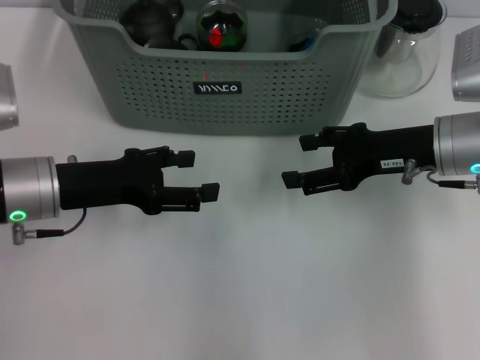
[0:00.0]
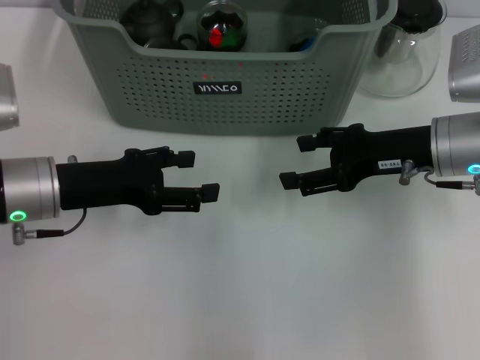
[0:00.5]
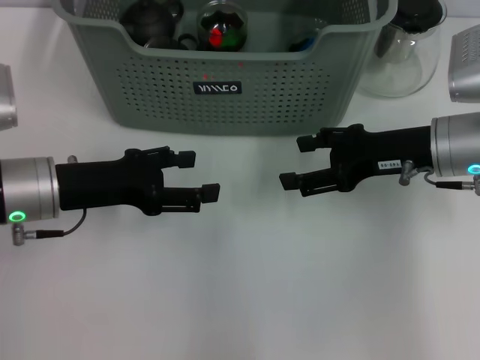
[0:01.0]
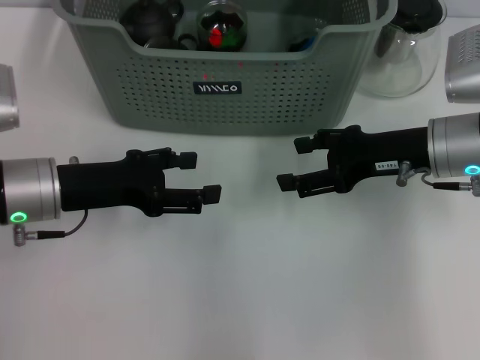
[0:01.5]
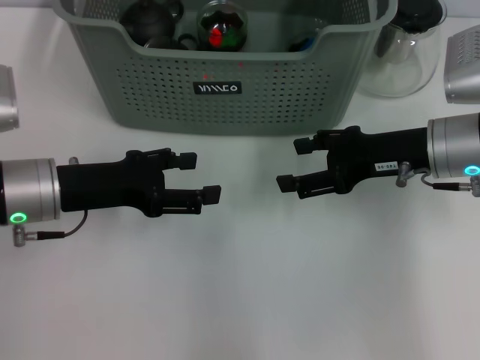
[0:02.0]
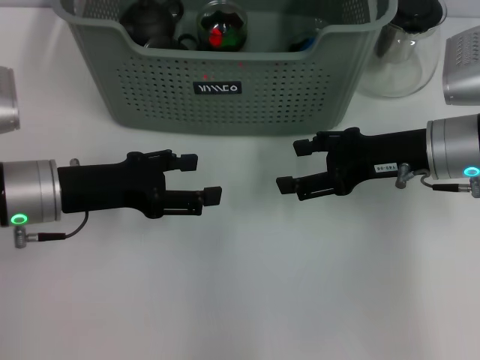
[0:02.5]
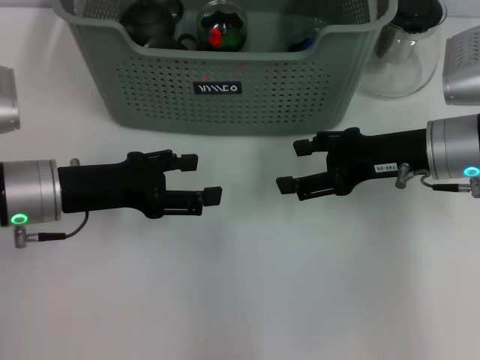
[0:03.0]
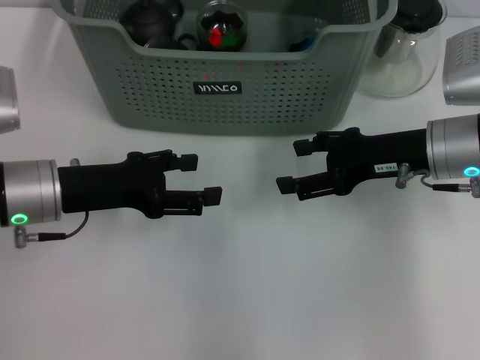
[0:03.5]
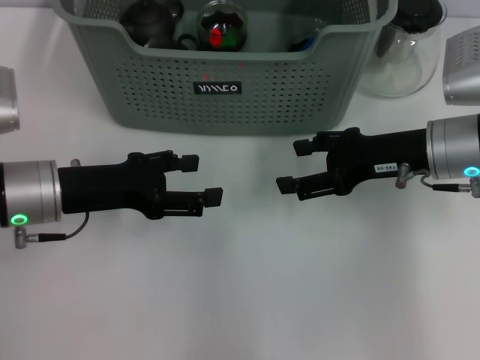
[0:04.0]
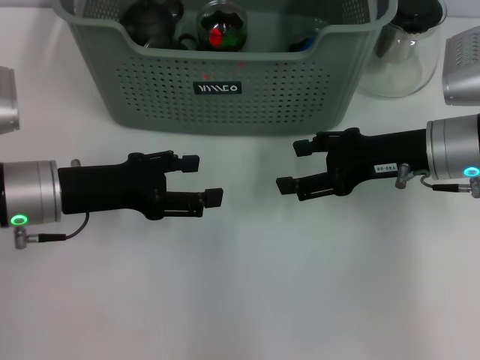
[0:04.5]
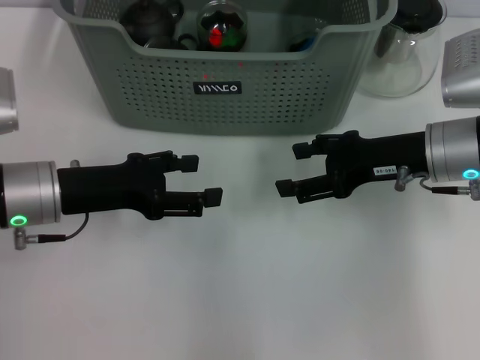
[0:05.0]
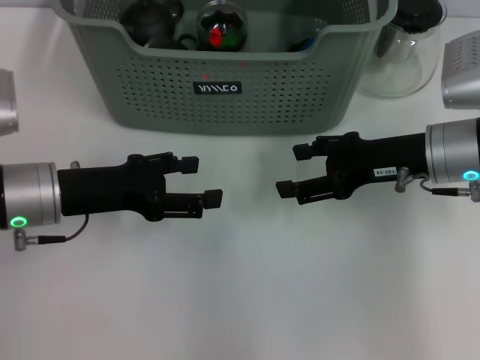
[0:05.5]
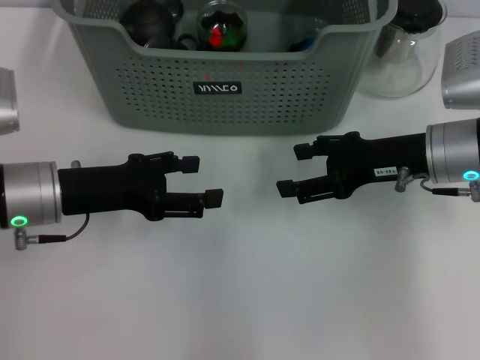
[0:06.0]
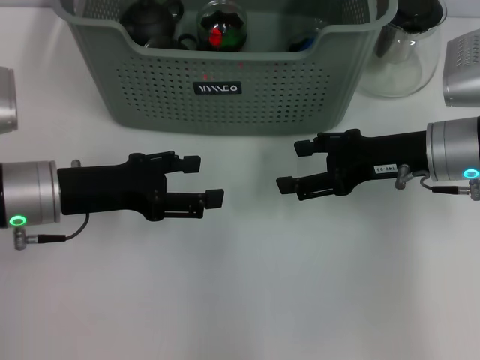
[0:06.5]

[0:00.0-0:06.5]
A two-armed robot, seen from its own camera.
Task of the whole recording: pick up the teacup on the table and place it into the storage bin, pick up the block on the table and place it into the storage bin.
0:00.0 to 0:06.5: Neither gripper changes place.

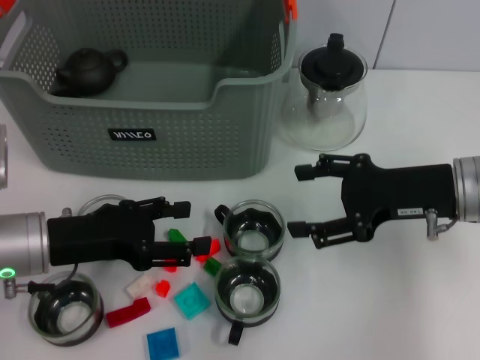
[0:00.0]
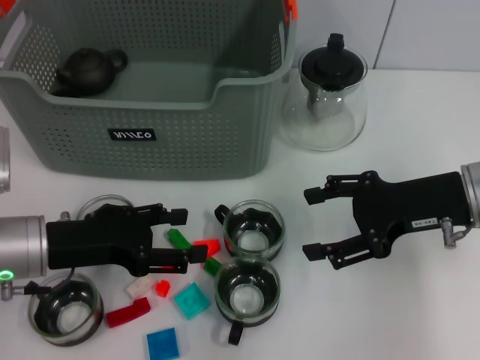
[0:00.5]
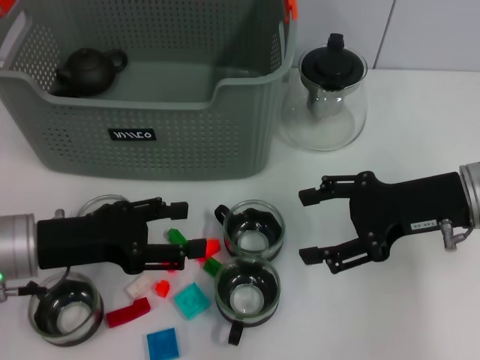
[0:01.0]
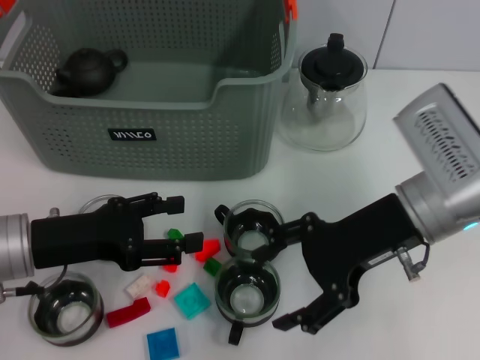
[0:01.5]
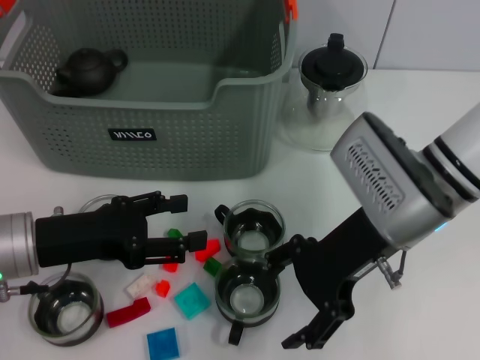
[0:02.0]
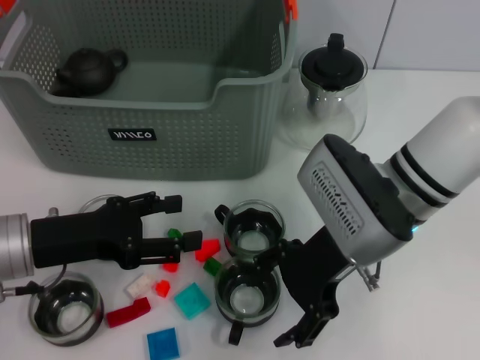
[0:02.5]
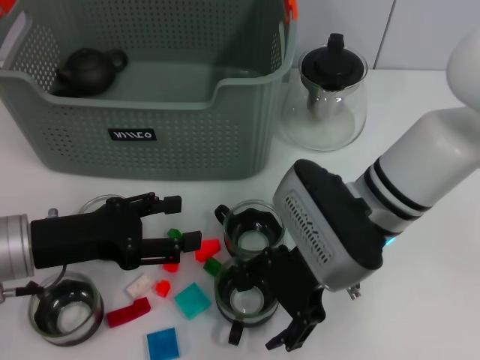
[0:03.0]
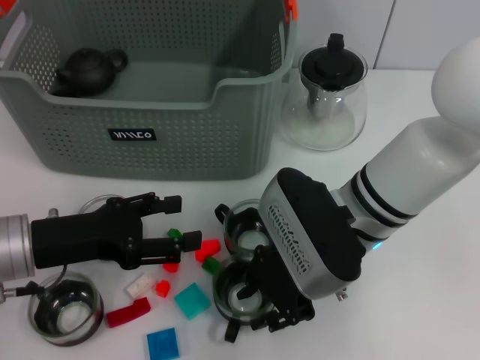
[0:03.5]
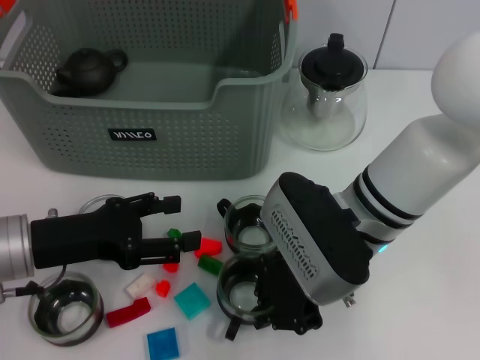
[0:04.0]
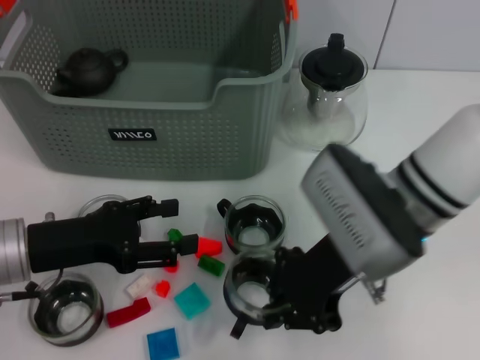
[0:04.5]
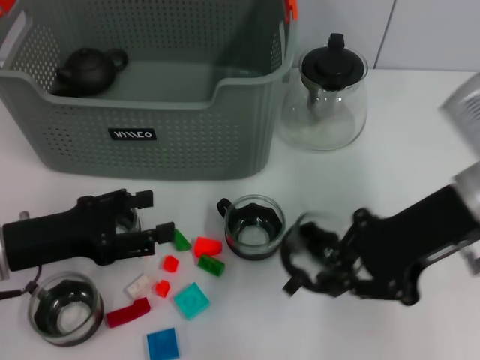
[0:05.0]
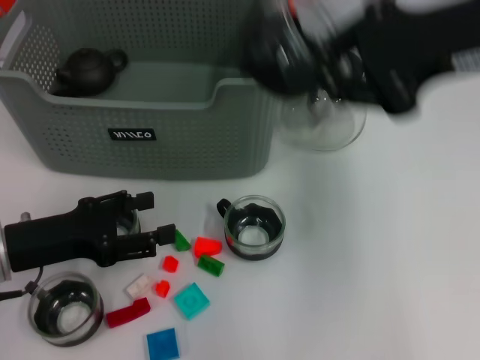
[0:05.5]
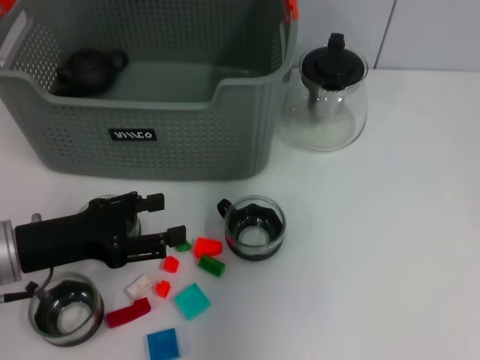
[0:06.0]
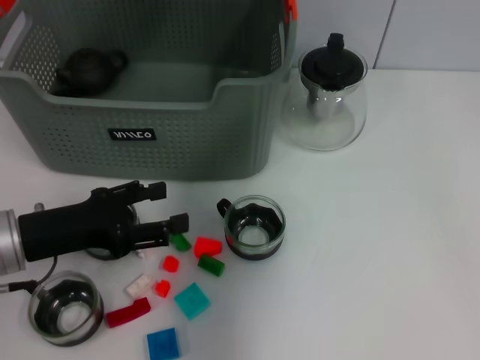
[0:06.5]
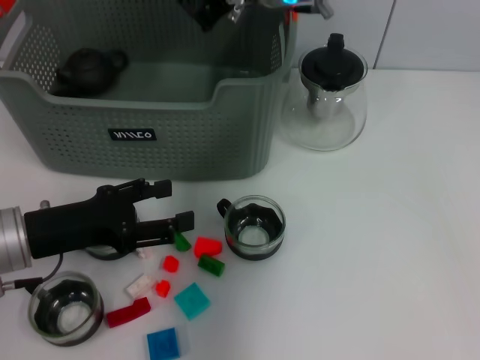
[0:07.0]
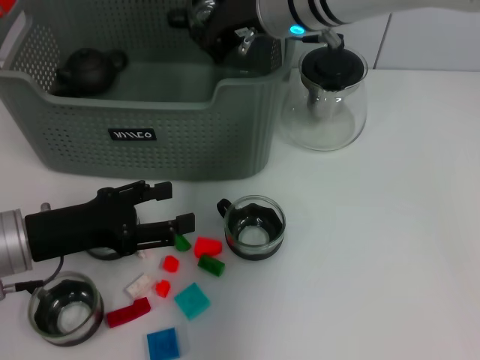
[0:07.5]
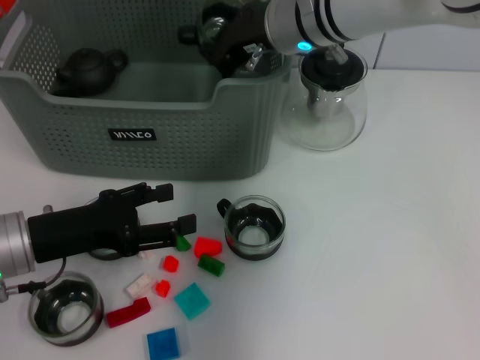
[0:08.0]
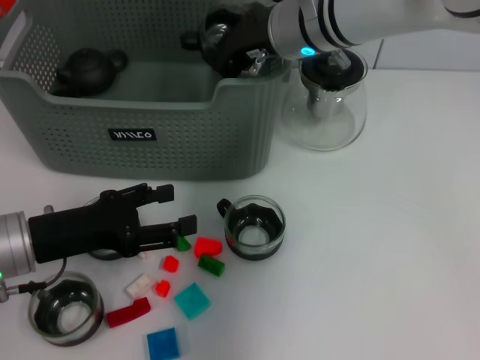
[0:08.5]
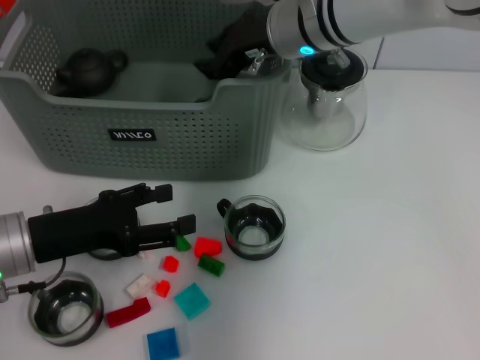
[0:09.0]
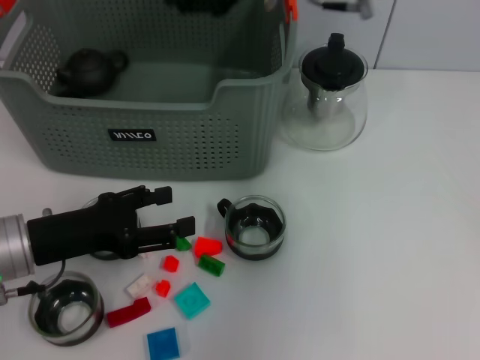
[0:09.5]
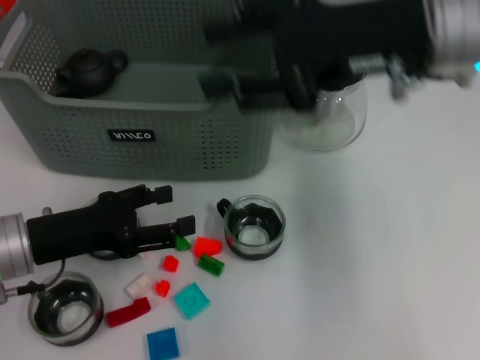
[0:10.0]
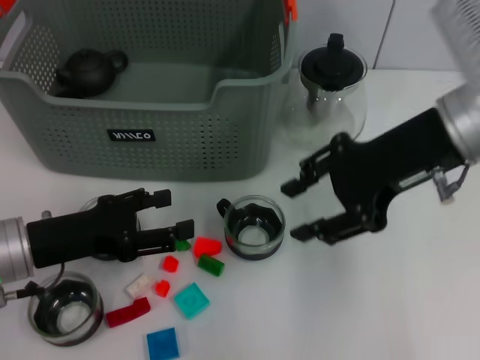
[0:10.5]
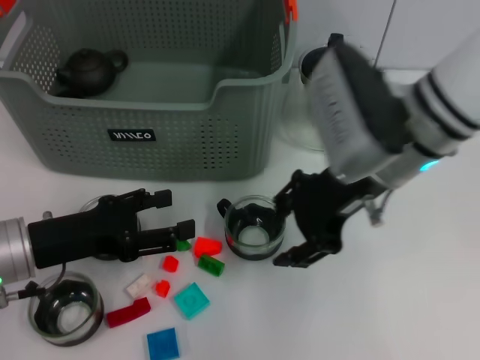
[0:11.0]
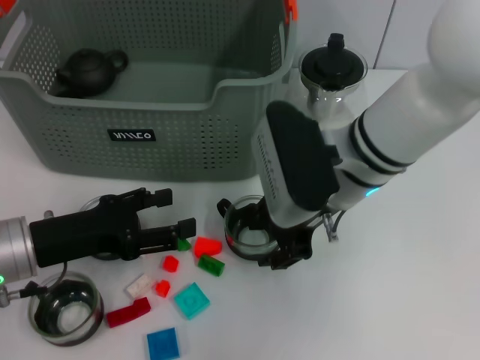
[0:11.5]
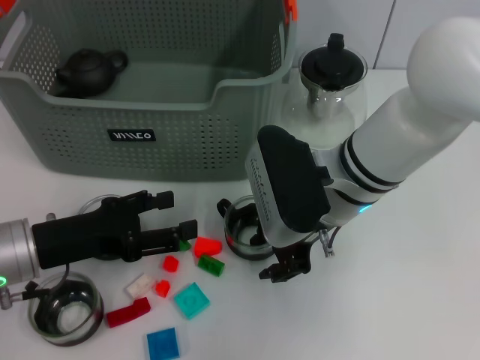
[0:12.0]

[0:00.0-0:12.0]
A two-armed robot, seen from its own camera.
Task of the whole recording: pick up the teacup on the table and place it into the storage bin, pick up the block on the table and place it into the storage bin.
Step, 0:00.0 to 0:03.5: Grasp the cup with right gripper.
Step, 0:04.0 to 0:09.0: Place the cup in the storage box with right gripper.
0:00.0 to 0:02.0: The right gripper shifts approximately 10 cm to the left.
0:02.0 to 0:04.0: The right gripper ends up approximately 5 cm from where it was, and closes its fingers.
0:04.0 to 0:06.0: The right gripper travels upward and forward by approximately 25 cm.
0:06.0 to 0:08.0: The right gripper goes approximately 15 cm downward.
0:08.0 to 0:10.0: The right gripper heads backward, to the right and upward, covering approximately 15 cm, and opens its fingers.
0:10.0 to 0:12.0: The right gripper moves downward and to the left, roughly 15 cm.

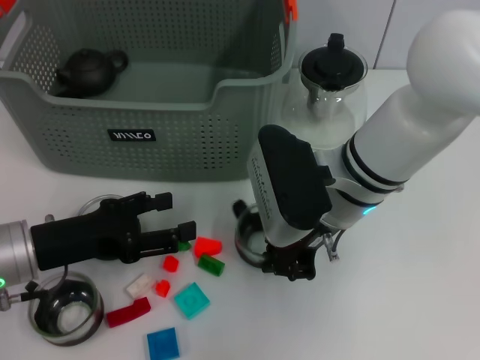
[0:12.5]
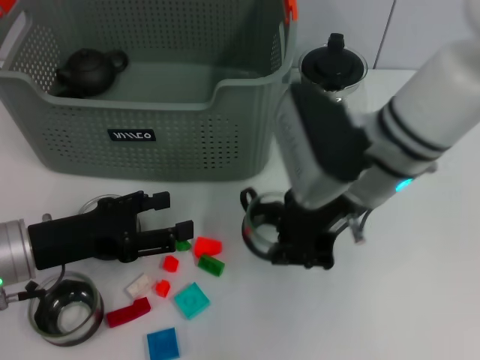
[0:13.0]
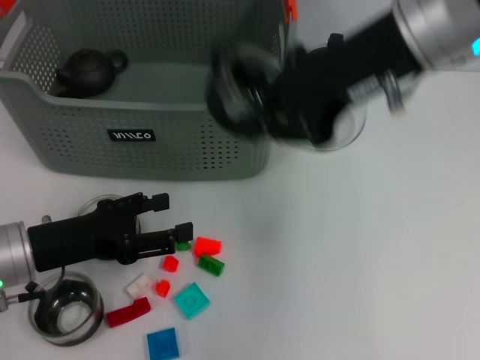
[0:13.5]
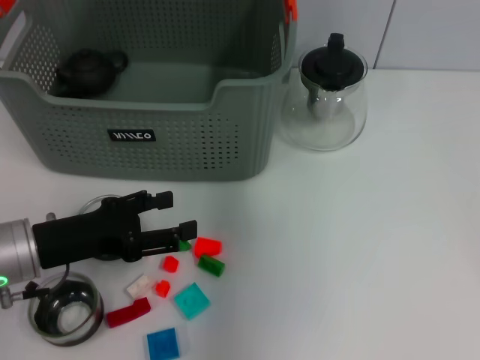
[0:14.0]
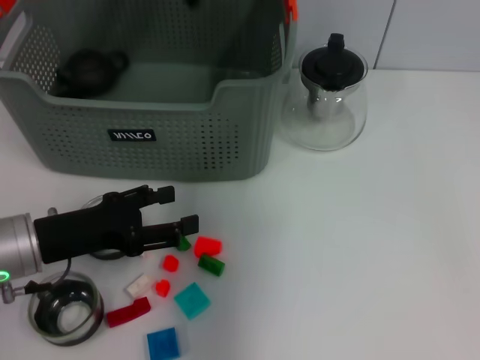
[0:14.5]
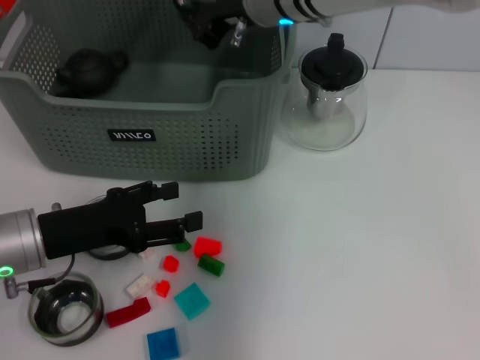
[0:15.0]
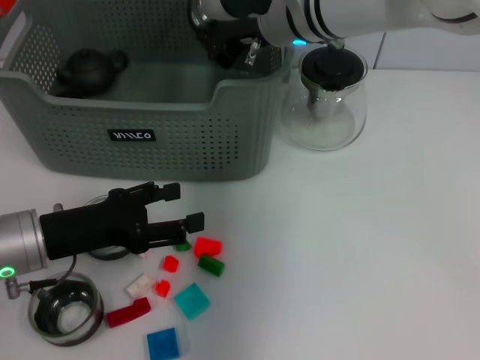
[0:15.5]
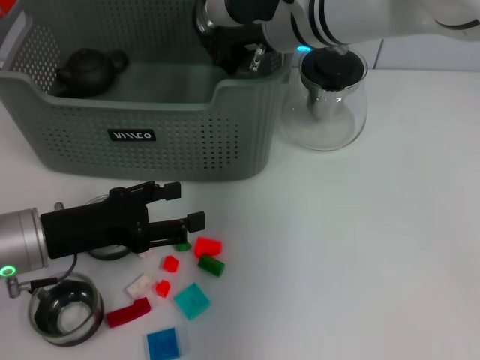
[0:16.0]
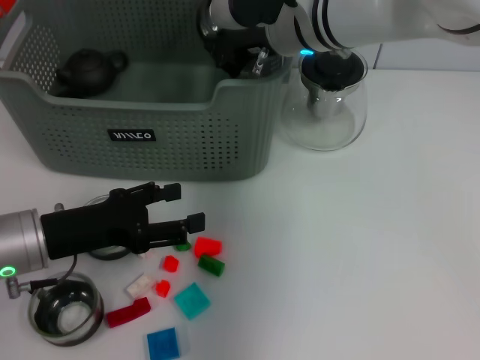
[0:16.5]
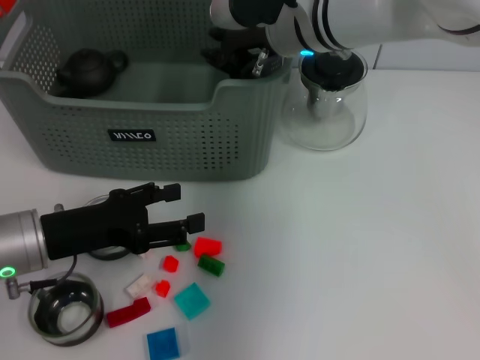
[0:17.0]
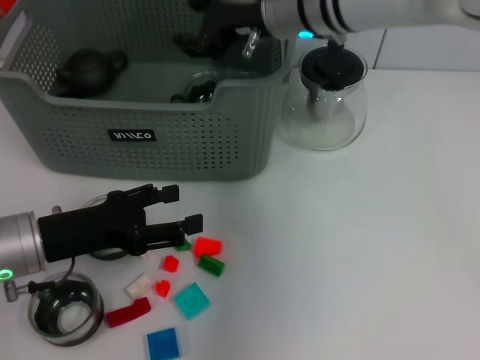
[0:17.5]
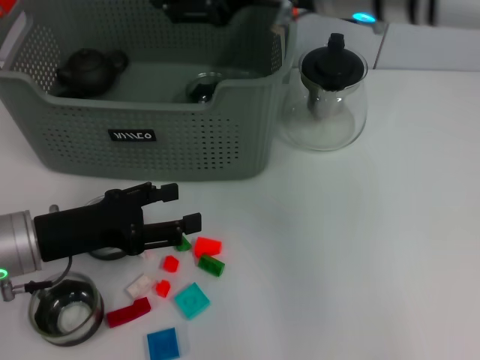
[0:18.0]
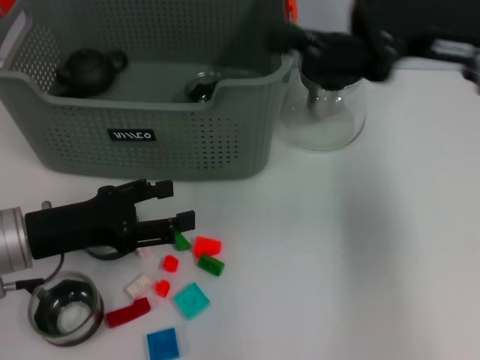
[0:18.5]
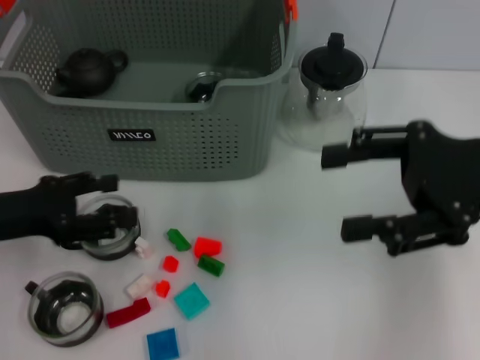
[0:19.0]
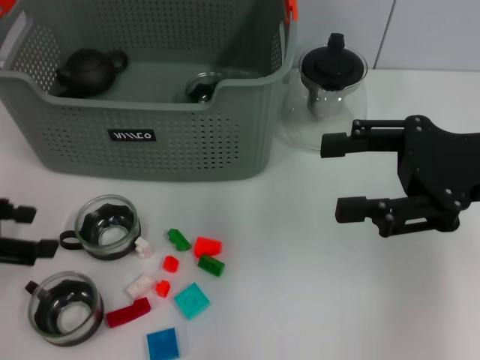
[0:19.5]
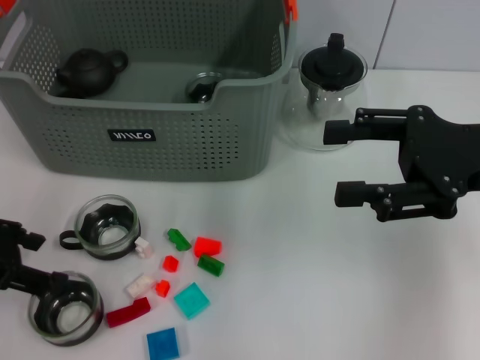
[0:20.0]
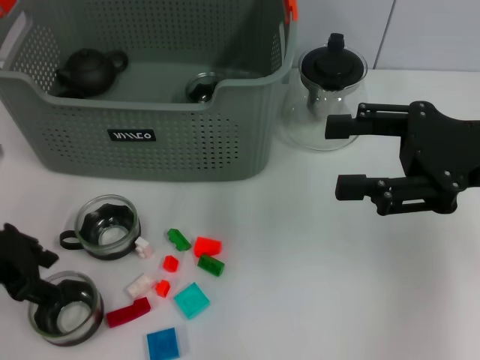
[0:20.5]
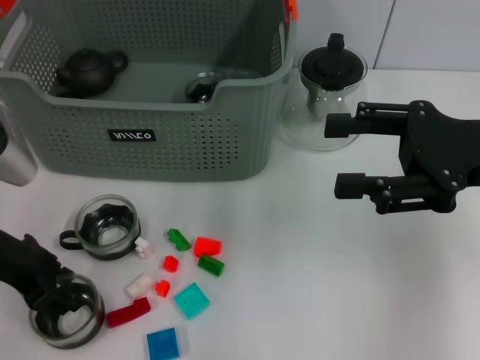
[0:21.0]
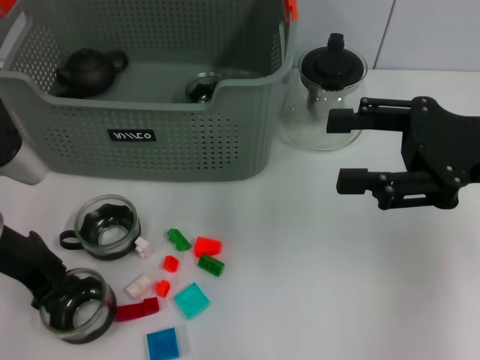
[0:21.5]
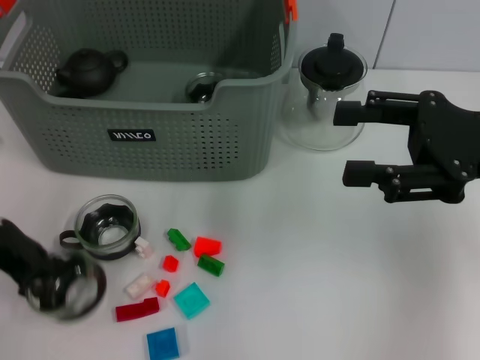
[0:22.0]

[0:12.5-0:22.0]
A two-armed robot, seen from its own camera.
Task of the whole recording: pick up the teacup on the table and place it into the storage bin, pick up the block on the table and place it into the storage bin.
Step, 0:13.0 to 0:17.0: Place the cup in the storage box with right gripper.
Step, 0:17.5 to 0:21.5: Grasp the cup with left gripper.
0:12.5 to 0:14.5: The right gripper travels upward, forward and to the left by approximately 20 cm.
0:14.5 to 0:16.5: The right gripper travels downward by roughly 5 cm.
0:16.5 to 0:18.0: The right gripper goes approximately 10 cm upward and backward, and opens.
0:18.0 to 0:20.0: The left gripper heads upward and to the left, covering some 10 cm. Meanwhile the right gripper shifts approximately 20 cm to the right, backward and downward.
0:20.0 to 0:22.0: The left gripper closes its fingers.
